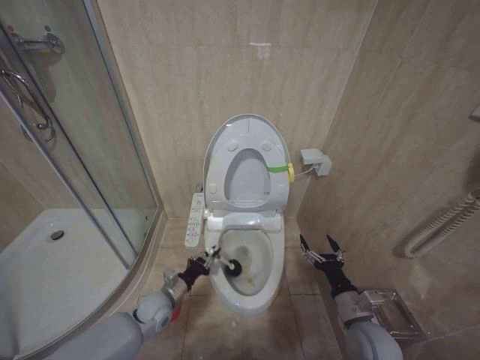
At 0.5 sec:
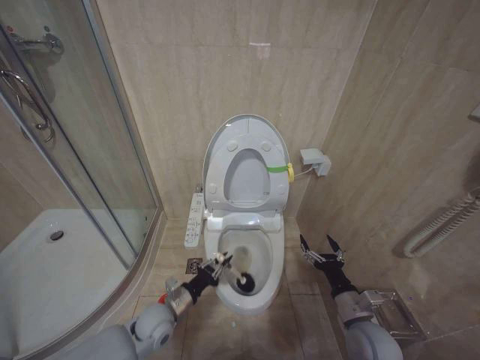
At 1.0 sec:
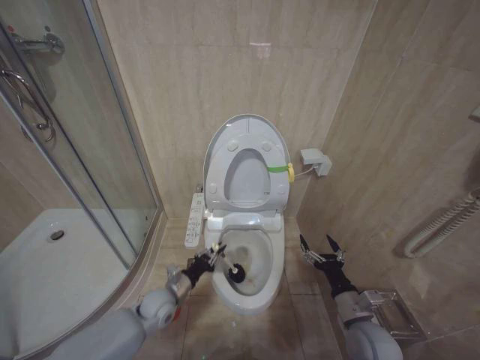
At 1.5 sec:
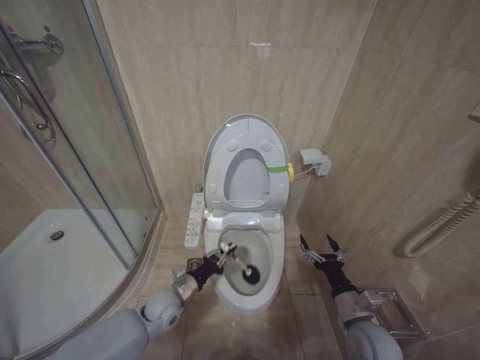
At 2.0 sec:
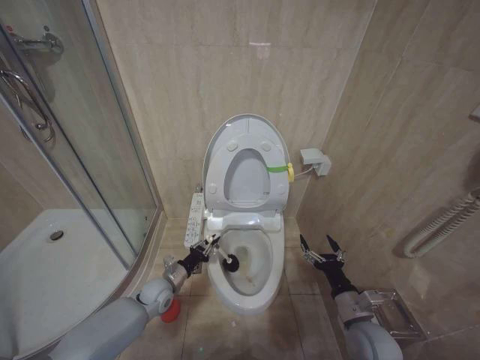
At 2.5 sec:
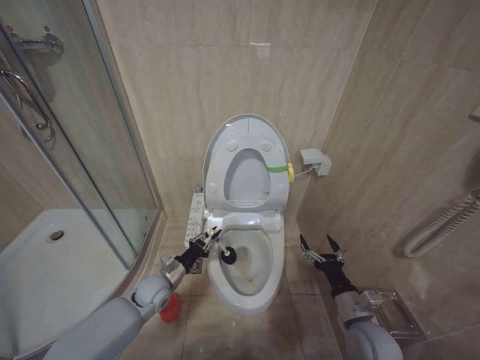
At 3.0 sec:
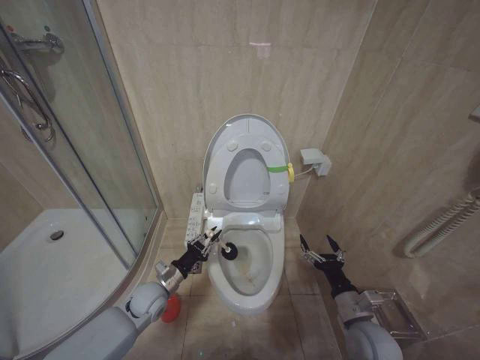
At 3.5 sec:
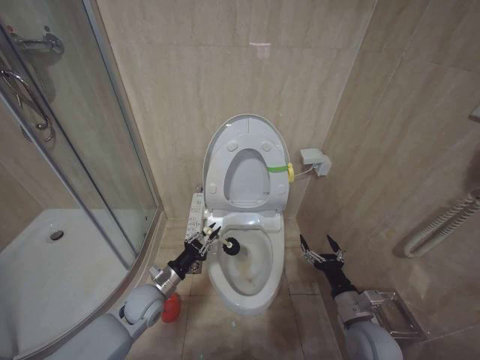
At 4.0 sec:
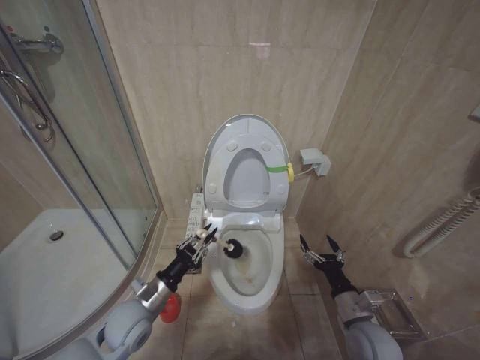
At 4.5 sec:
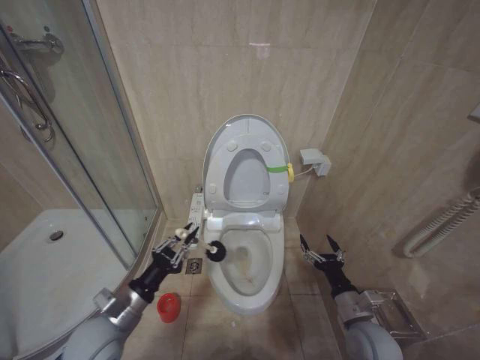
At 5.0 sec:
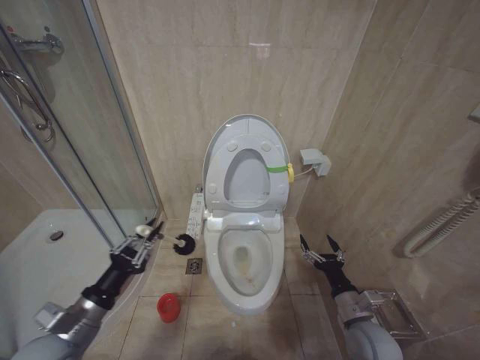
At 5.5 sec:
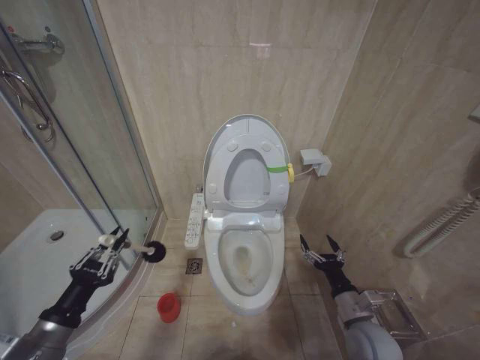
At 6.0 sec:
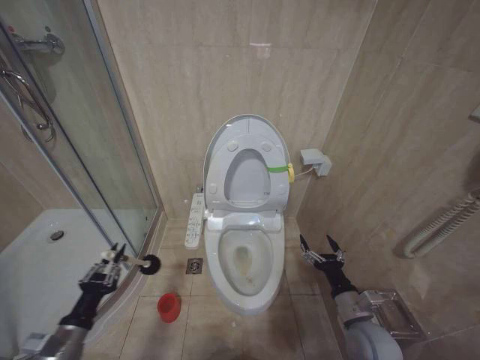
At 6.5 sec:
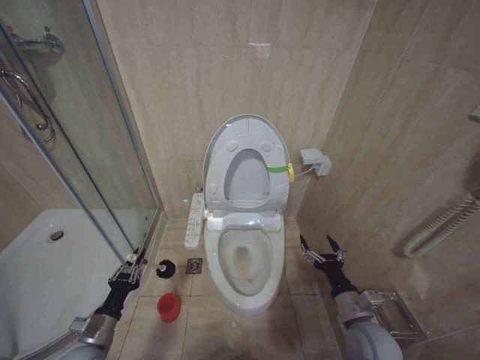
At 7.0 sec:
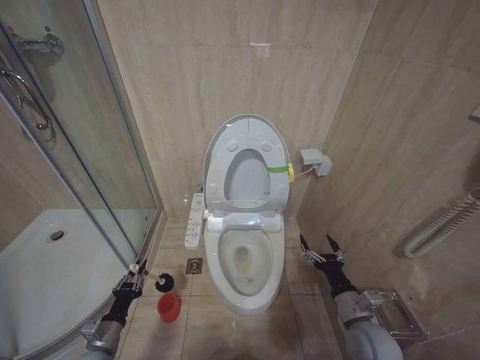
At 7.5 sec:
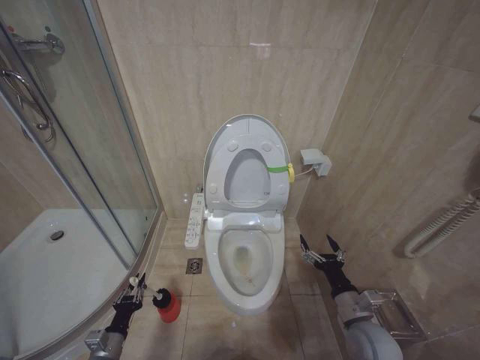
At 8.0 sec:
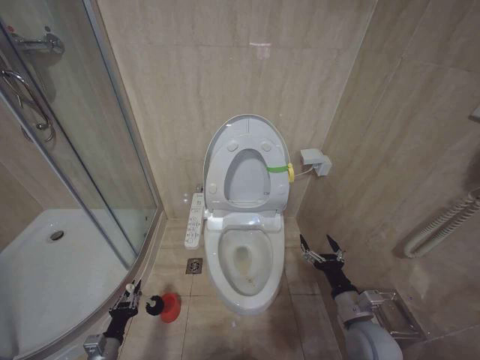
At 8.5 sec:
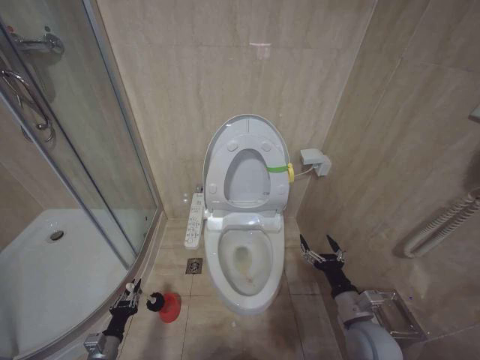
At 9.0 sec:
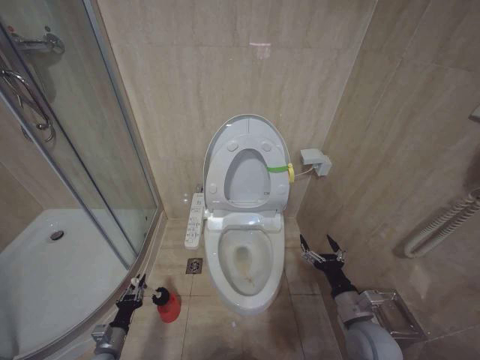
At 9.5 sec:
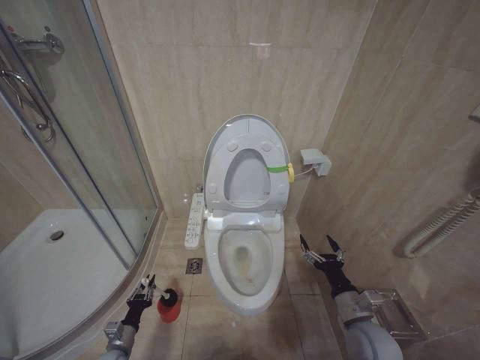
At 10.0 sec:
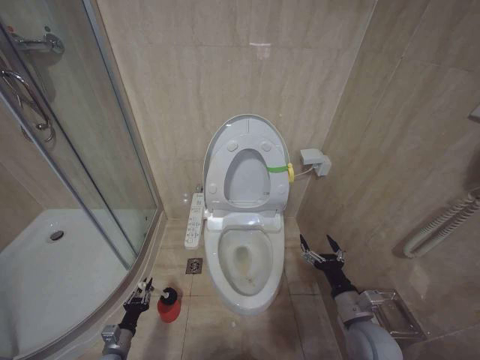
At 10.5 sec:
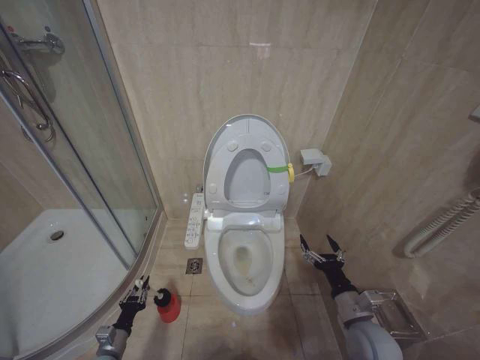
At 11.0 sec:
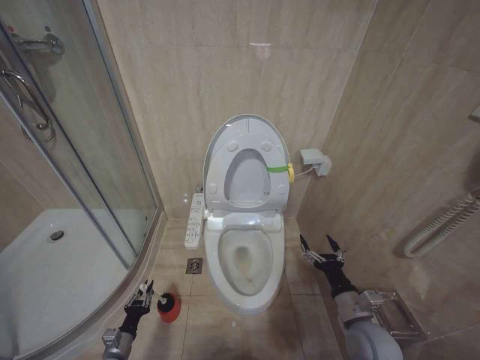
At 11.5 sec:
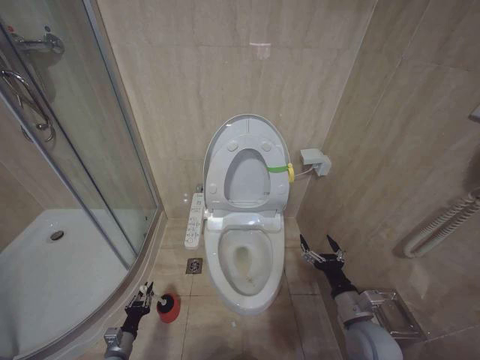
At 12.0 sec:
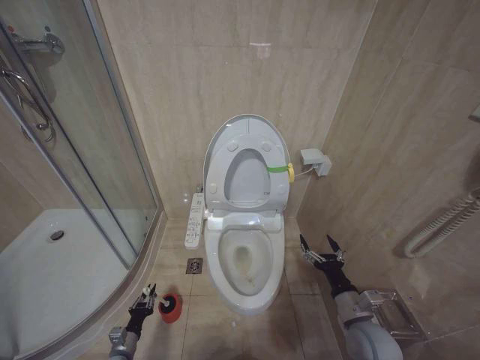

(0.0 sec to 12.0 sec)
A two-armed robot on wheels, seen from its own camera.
Task of the whole recording: Open the toilet lid, clean the toilet bowl with a toilet brush, close the toilet lid, and flush.
0.0 sec - 2.0 sec: The left gripper heads forward, covering roughly 5 cm.
2.0 sec - 4.0 sec: The left gripper goes approximately 15 cm upward and backward.
4.0 sec - 6.0 sec: The left gripper moves to the left and backward, roughly 20 cm.
6.0 sec - 8.0 sec: The left gripper is displaced downward by about 20 cm.
8.0 sec - 10.0 sec: The left gripper goes about 5 cm downward.
10.0 sec - 12.0 sec: There are only small adjustments of the grippers.

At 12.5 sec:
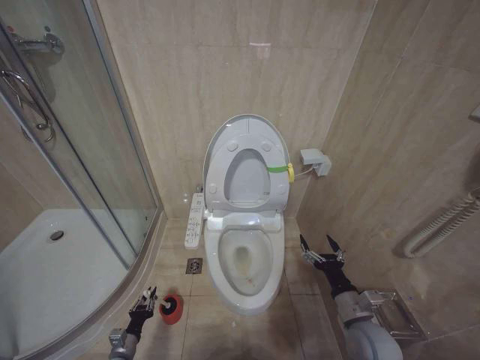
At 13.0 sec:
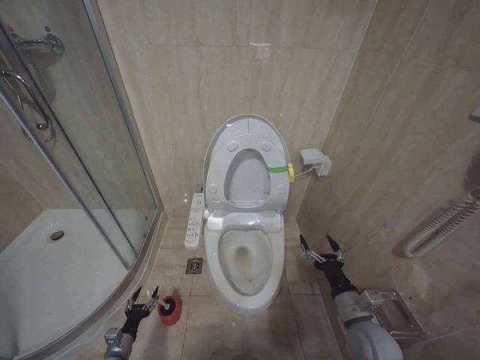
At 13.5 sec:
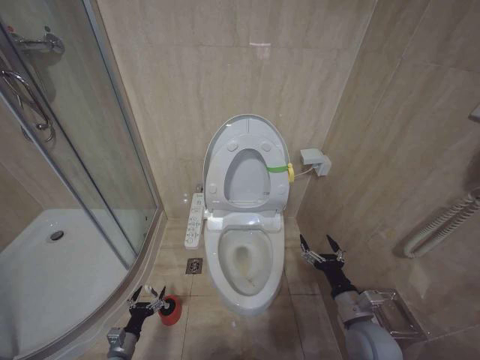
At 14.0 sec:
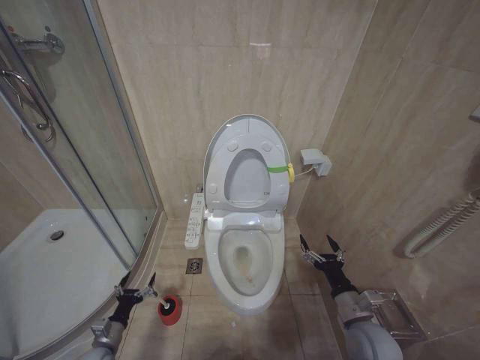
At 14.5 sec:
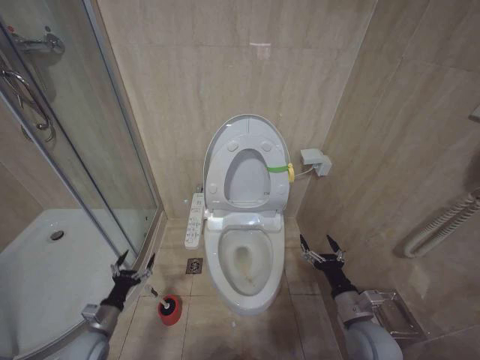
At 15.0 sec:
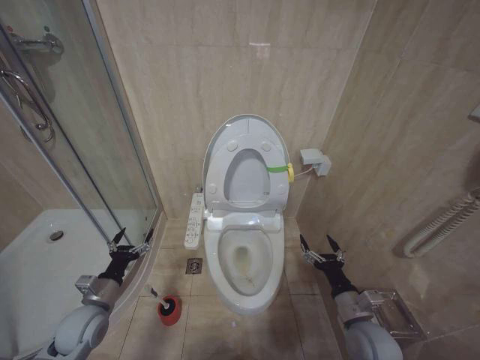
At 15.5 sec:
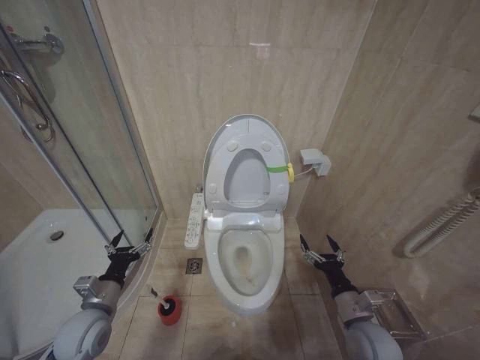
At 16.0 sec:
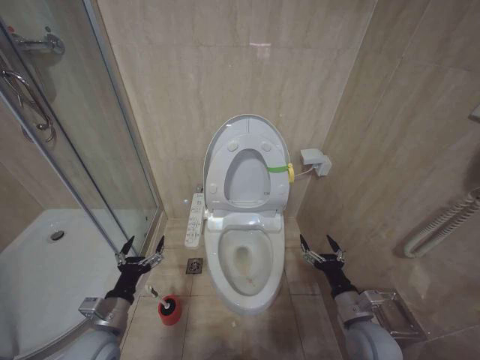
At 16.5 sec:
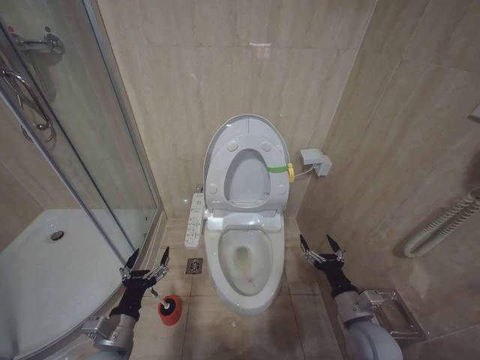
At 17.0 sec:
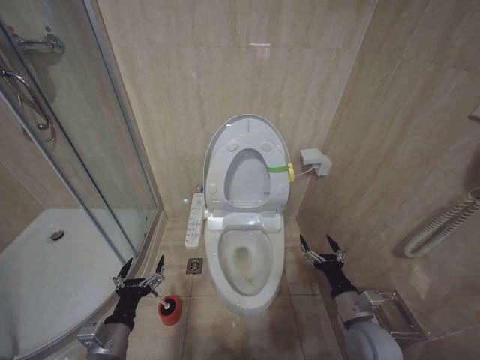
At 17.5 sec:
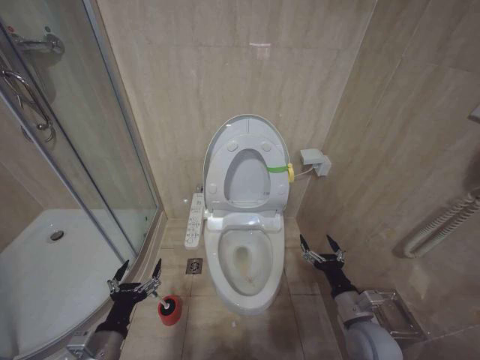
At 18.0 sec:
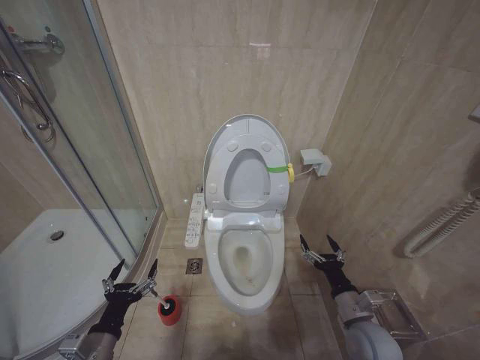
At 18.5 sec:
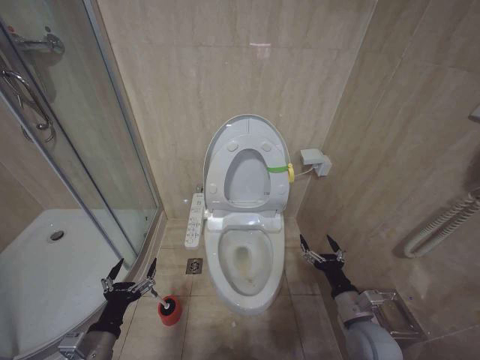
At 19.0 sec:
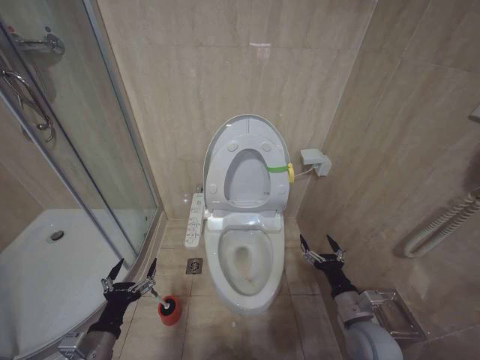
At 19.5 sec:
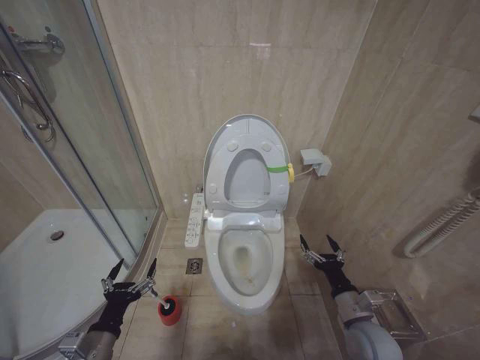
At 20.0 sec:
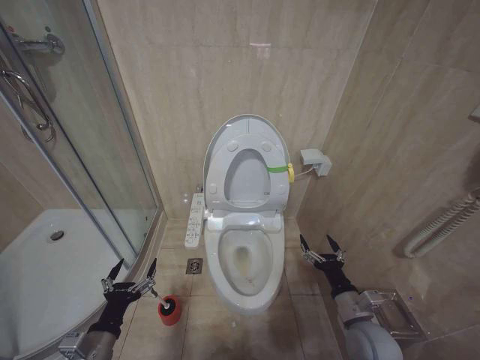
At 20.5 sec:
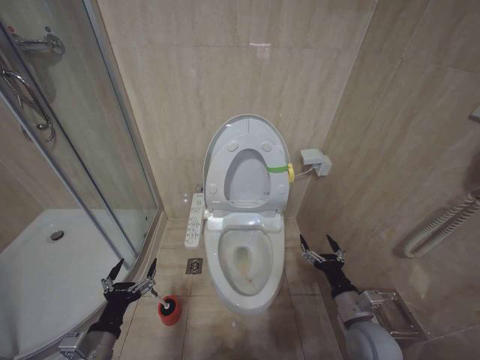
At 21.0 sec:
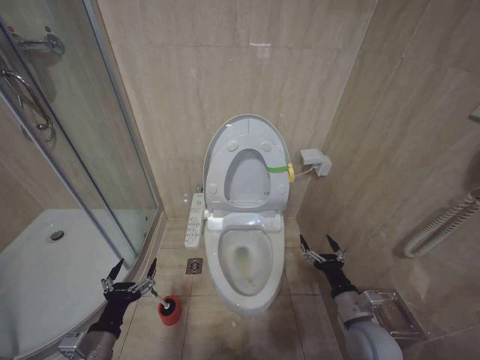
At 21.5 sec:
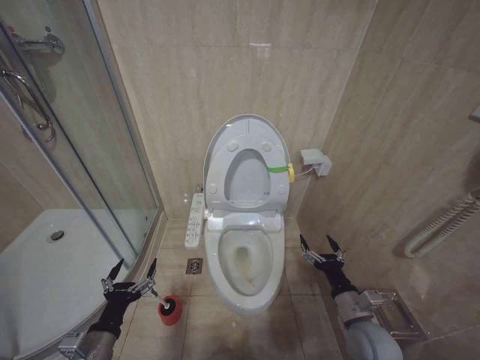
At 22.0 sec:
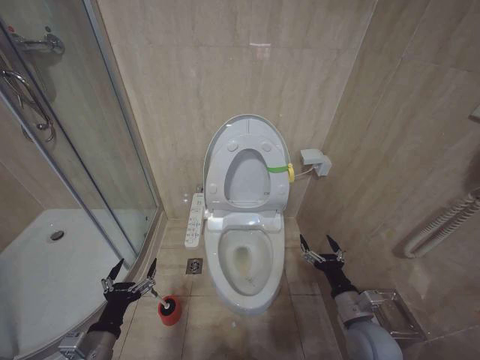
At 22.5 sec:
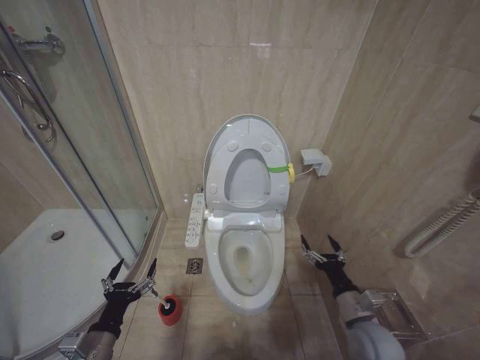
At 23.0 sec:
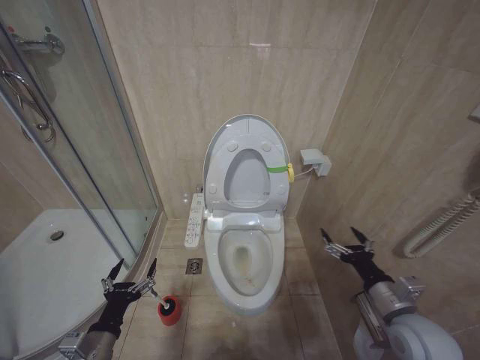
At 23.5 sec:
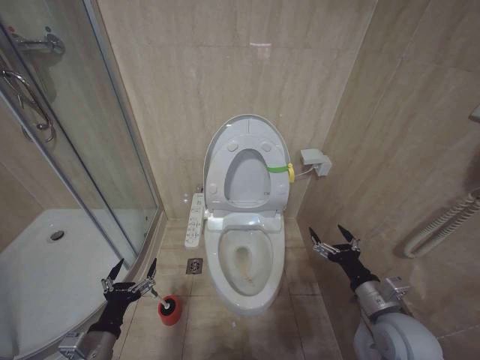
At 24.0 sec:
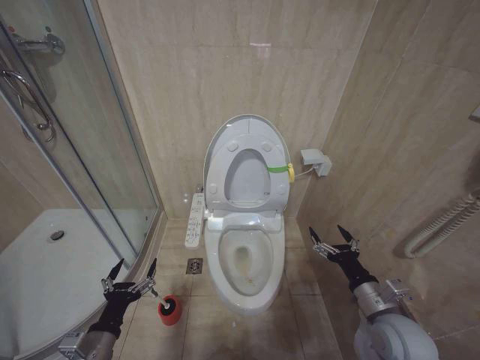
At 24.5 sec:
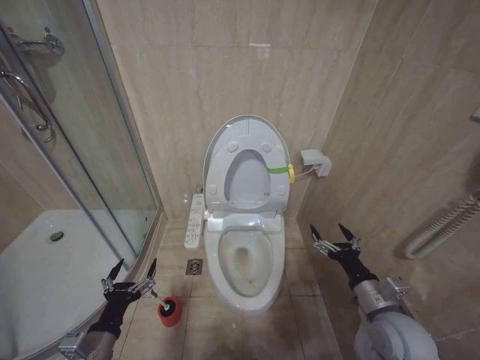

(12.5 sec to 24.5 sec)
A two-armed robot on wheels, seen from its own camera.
Task of the whole recording: Open the toilet lid, clean the toilet bowl with a toilet brush, close the toilet lid, and flush.
12.5 sec - 14.5 sec: The left gripper travels upward by some 15 cm, and opens up.
14.5 sec - 16.5 sec: The left gripper goes about 20 cm upward, to the right and backward.
16.5 sec - 18.5 sec: The left gripper changes place by approximately 5 cm.
18.5 sec - 22.5 sec: Neither gripper changes place.
22.5 sec - 24.5 sec: The right gripper moves upward, about 5 cm.

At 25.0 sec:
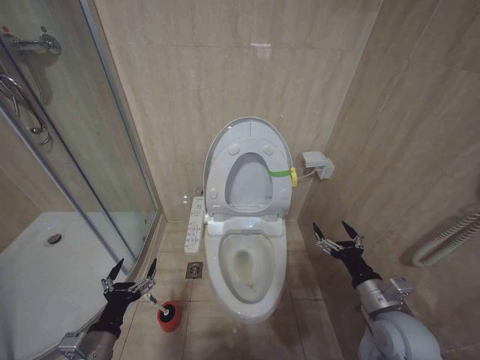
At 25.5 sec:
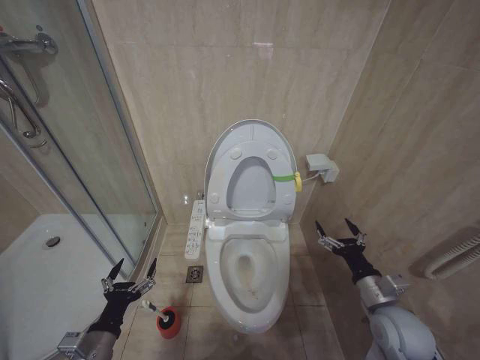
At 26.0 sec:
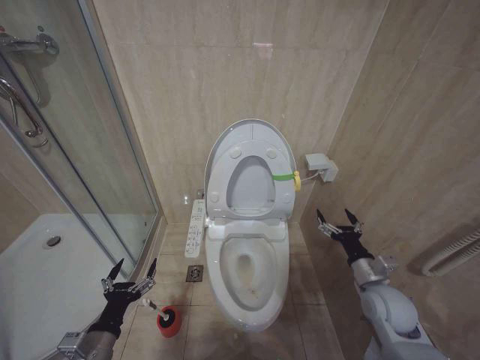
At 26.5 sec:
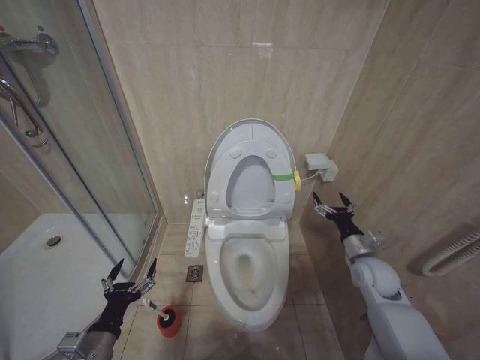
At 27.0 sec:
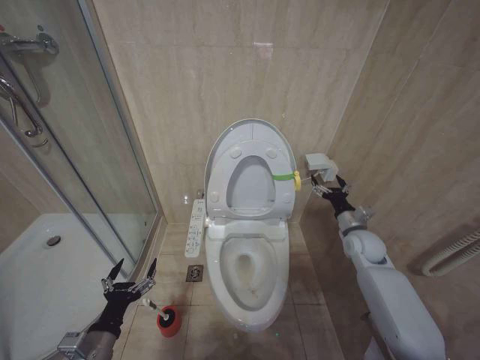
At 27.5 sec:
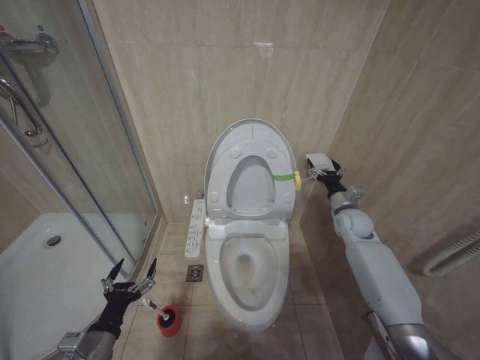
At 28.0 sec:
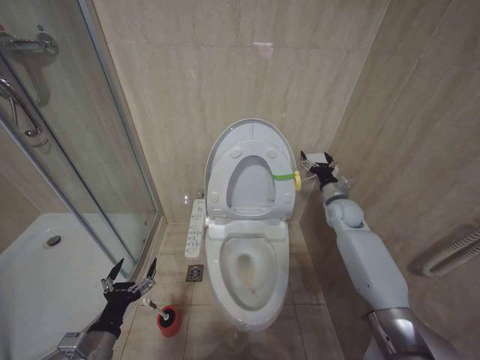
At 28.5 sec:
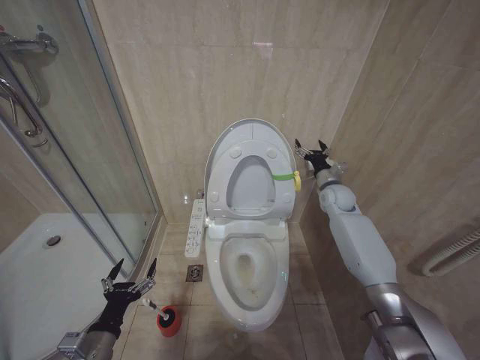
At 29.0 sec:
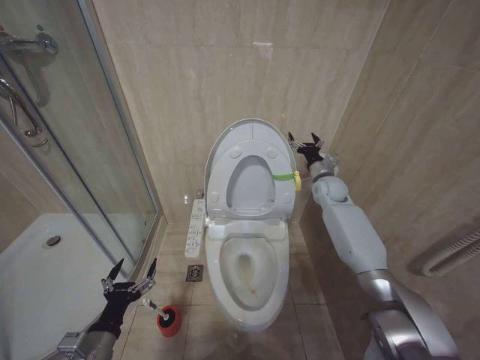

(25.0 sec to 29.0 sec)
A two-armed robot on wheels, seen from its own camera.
Task of the whole recording: Open the toilet lid, clean the toilet bowl with a toilet brush, close the toilet lid, and flush.
25.0 sec - 27.0 sec: The right gripper travels forward by roughly 20 cm.
27.0 sec - 29.0 sec: The right gripper moves forward and upward, approximately 20 cm.
